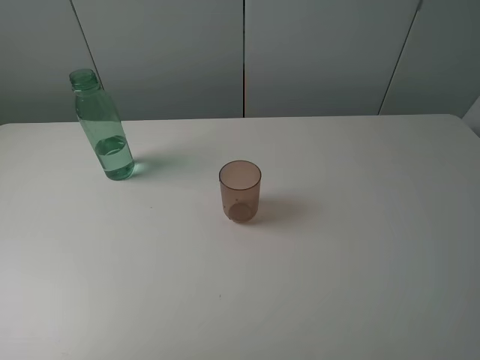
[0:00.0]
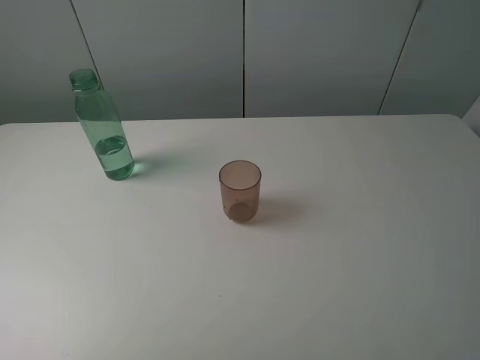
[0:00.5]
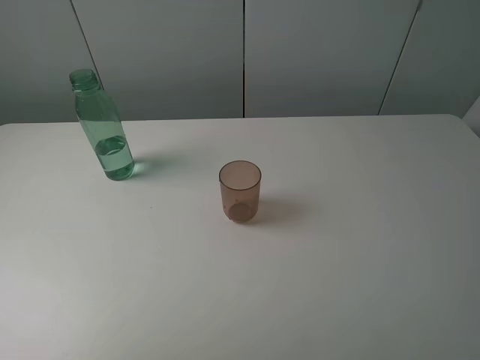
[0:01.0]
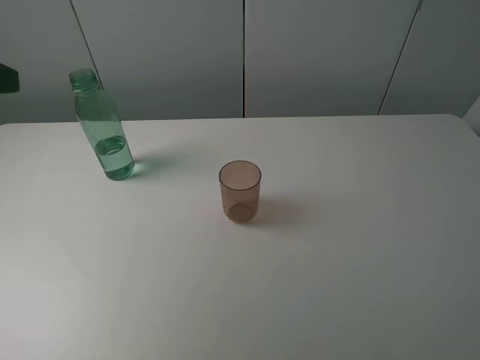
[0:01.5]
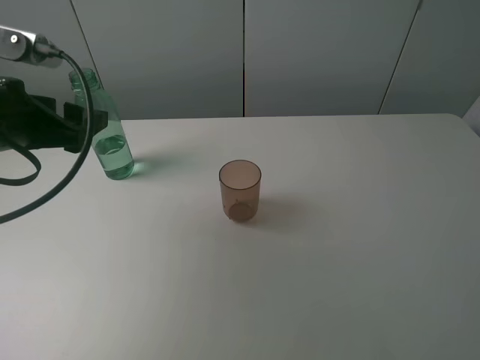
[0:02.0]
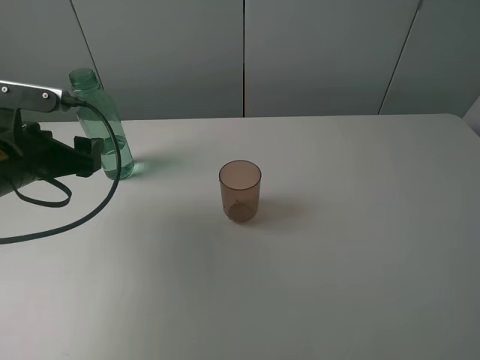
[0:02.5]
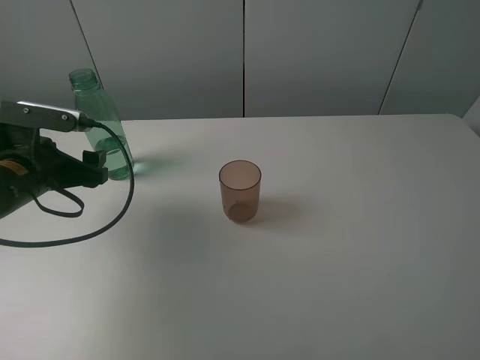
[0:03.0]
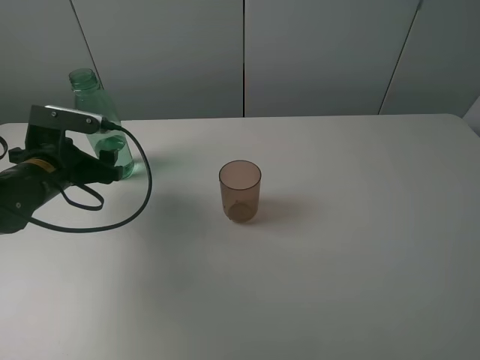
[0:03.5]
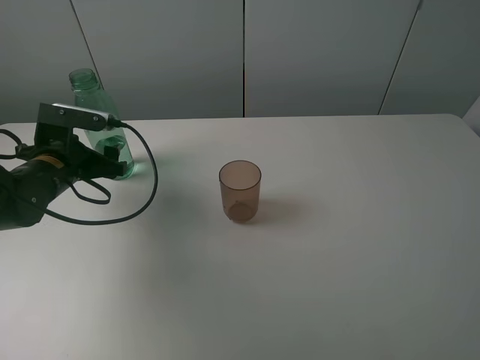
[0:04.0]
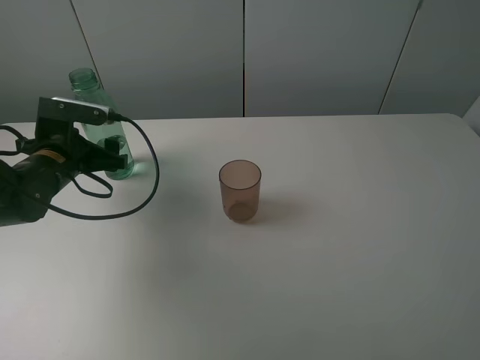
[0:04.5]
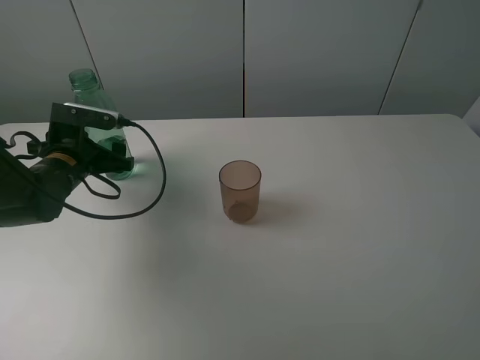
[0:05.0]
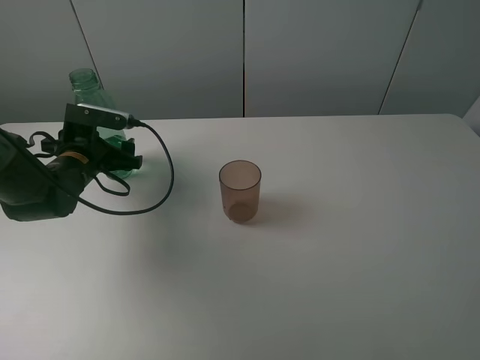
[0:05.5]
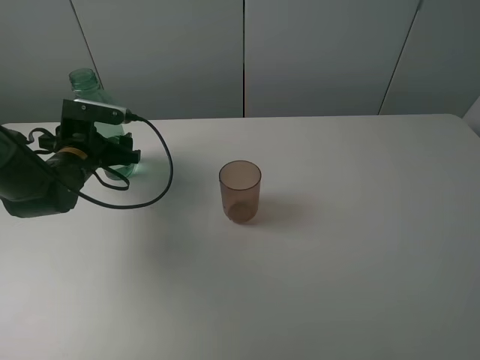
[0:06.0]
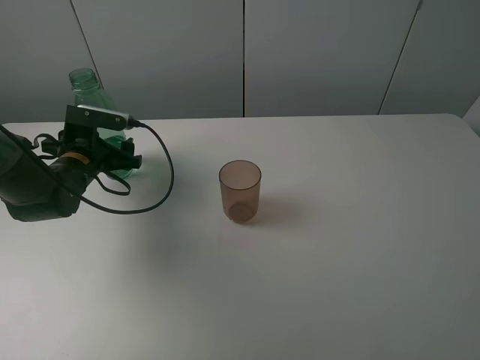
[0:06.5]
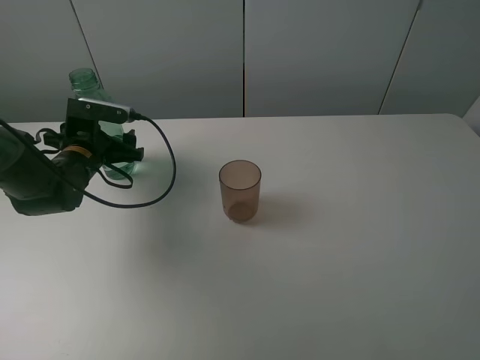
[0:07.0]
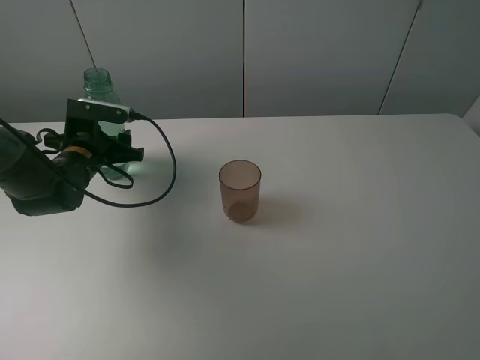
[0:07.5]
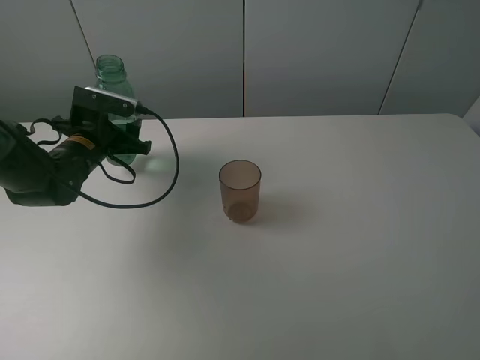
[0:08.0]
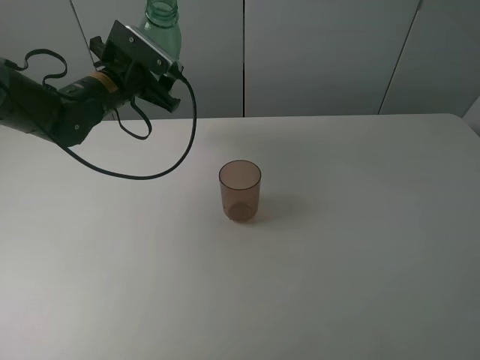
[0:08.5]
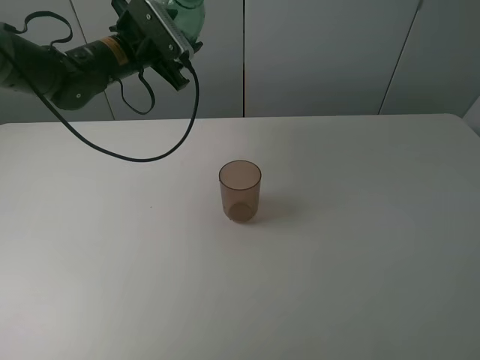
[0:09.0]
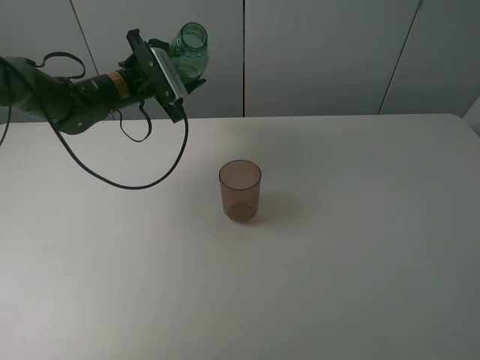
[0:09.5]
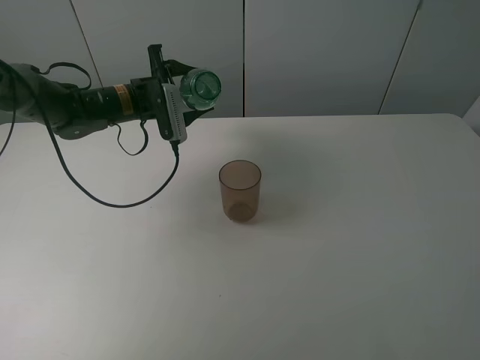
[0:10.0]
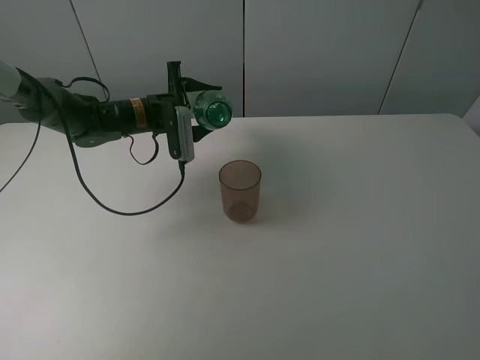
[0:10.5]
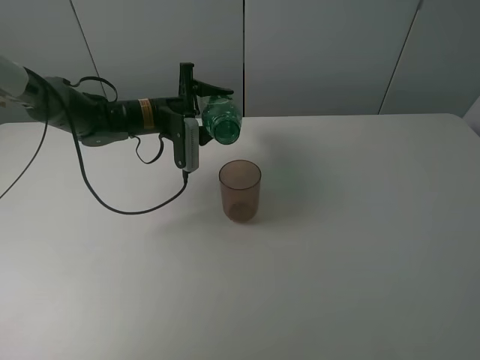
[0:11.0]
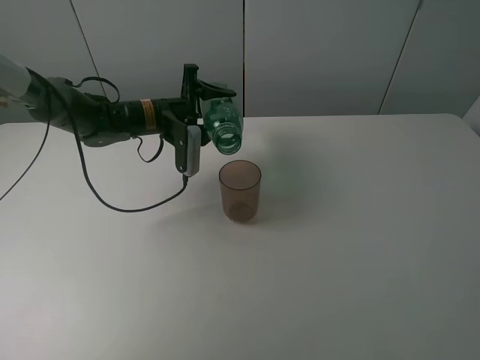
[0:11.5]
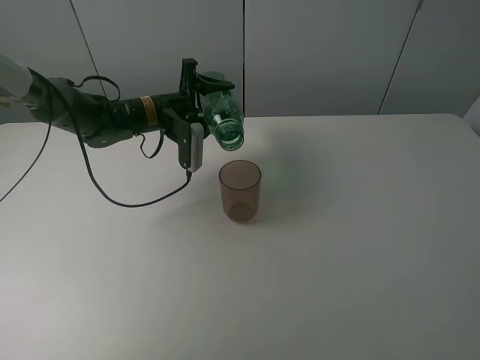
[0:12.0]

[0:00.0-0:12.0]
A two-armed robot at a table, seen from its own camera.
Task of the whole recording: pick up the bottle filled with water and pour it into the pink cup.
Step, 0:00.0 to 0:07.5: Grasp the green bottle with the left gripper.
0:00.0 to 0:02.0: The left gripper is displaced forward by about 25 cm.
0:02.0 to 0:04.0: The left gripper goes some 15 cm downward and forward.
0:04.0 to 0:06.0: The grippers move only a little.
0:06.0 to 0:08.0: The left gripper closes.
0:08.0 to 0:10.0: The left gripper is displaced forward and to the right by about 10 cm, and goes upward and returns, about 10 cm each way.

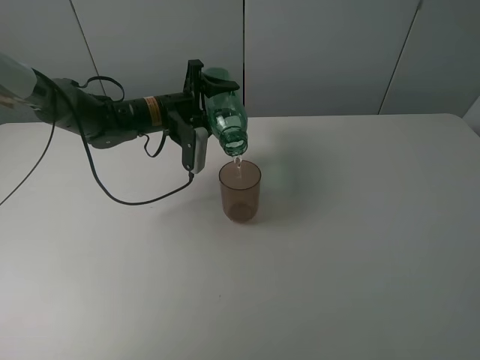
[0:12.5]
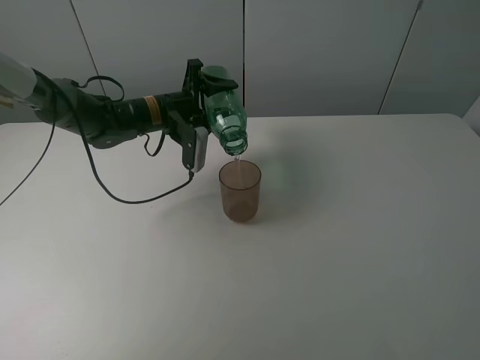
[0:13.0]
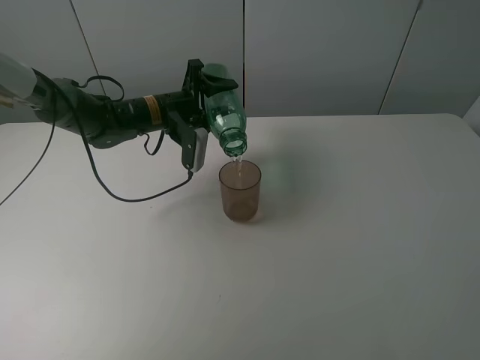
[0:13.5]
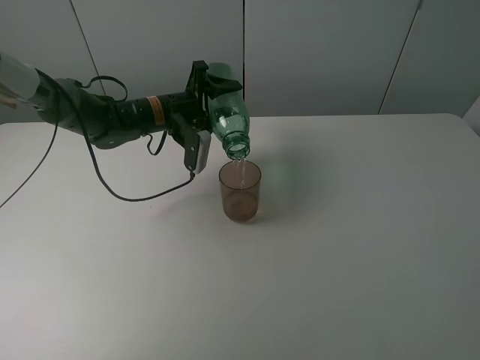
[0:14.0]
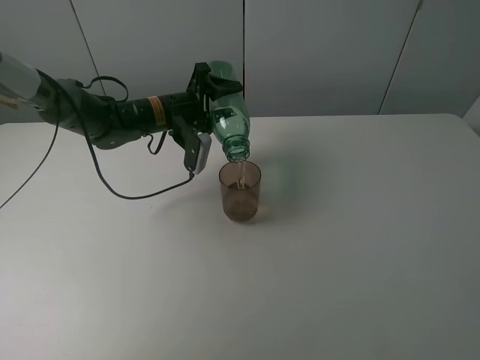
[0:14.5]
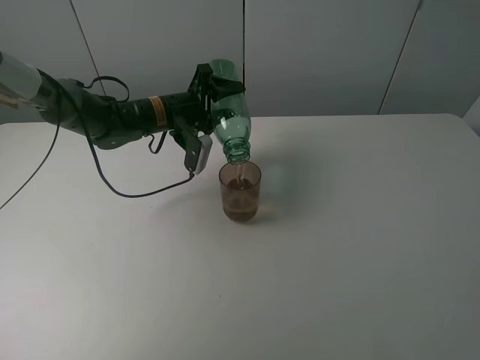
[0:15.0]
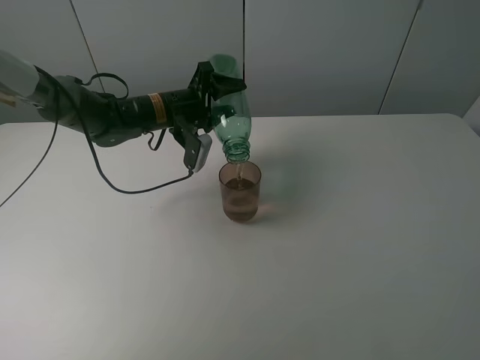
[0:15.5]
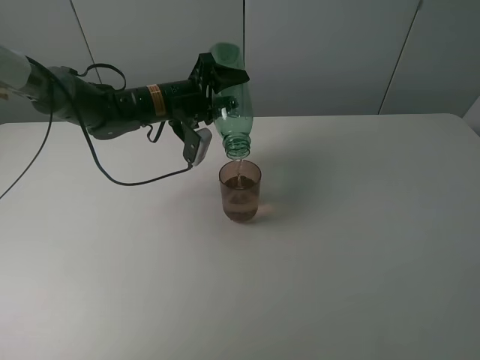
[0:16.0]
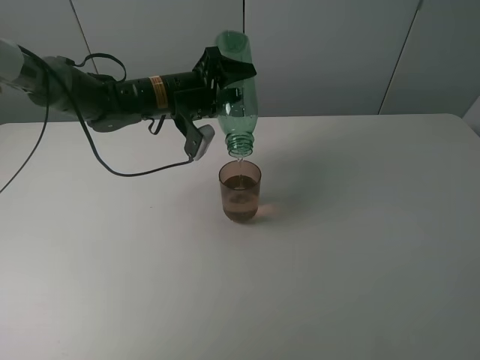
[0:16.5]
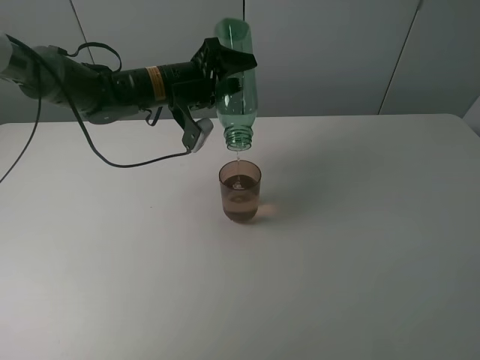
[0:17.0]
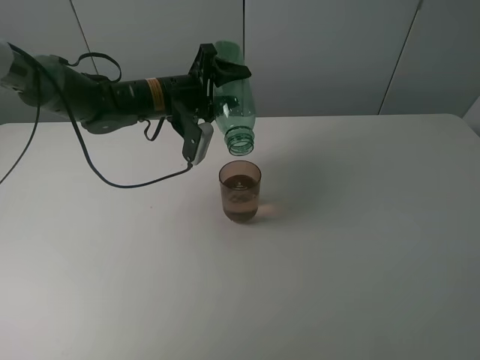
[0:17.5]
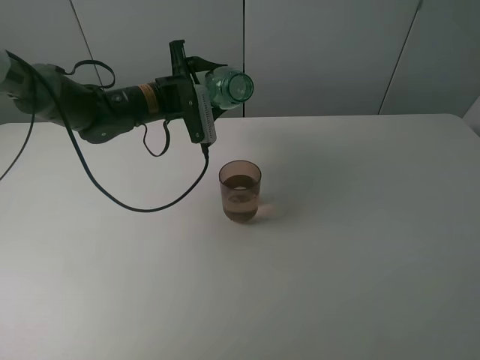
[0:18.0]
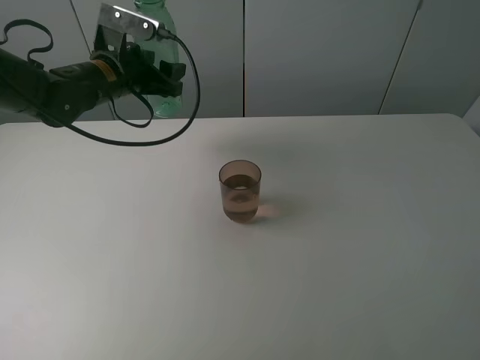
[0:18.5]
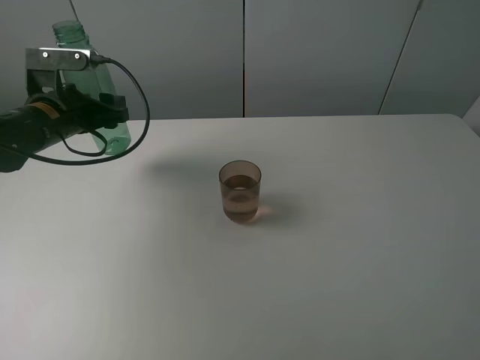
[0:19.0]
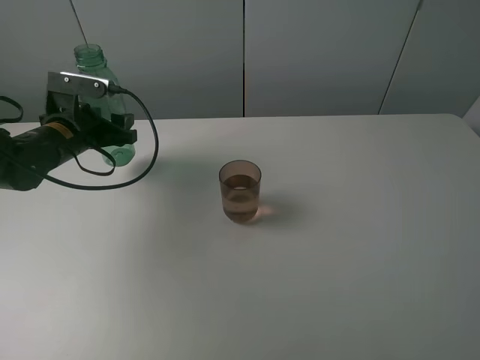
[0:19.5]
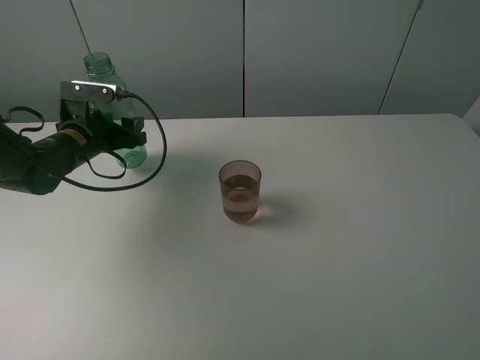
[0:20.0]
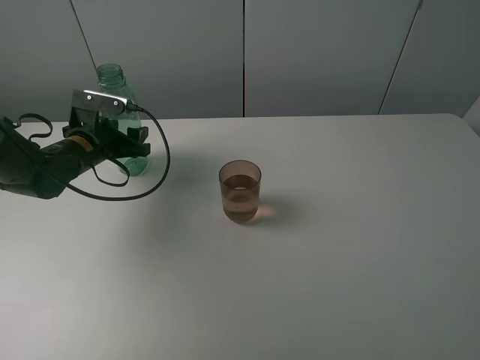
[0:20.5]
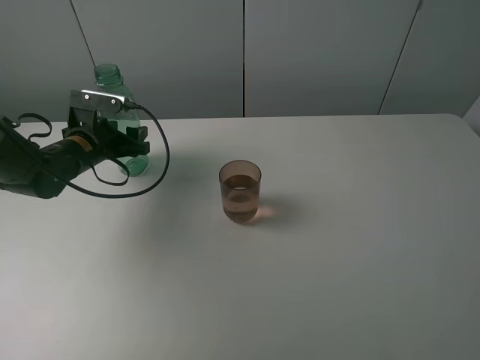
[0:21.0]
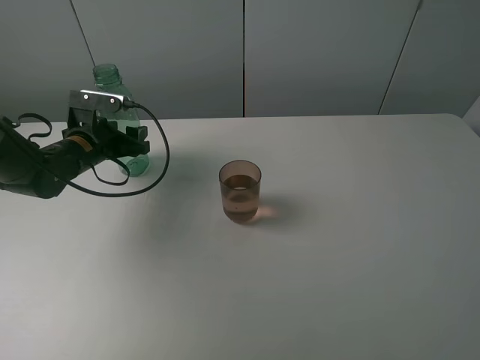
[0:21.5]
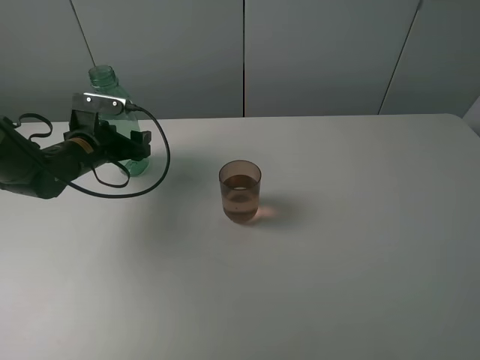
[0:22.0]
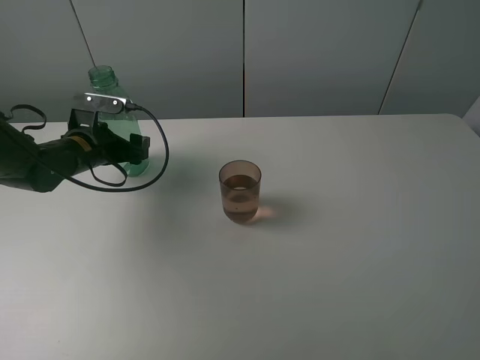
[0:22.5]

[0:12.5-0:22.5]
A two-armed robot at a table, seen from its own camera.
Task of the whole recording: pick up the bottle filled with water and pour it into the pink cup.
Step, 0:12.5 to 0:17.5: Pour water from green bottle to pink cup with the left gripper.
0:12.5 to 0:14.5: The grippers stay close to where they were, moving slightly.
0:14.5 to 0:16.5: The grippers stay close to where they were, moving slightly.
0:16.5 to 0:18.5: The left gripper is displaced to the left by approximately 10 cm.
0:18.5 to 0:20.5: The left gripper travels downward and to the left by roughly 10 cm.
0:20.5 to 0:22.5: The left gripper opens.

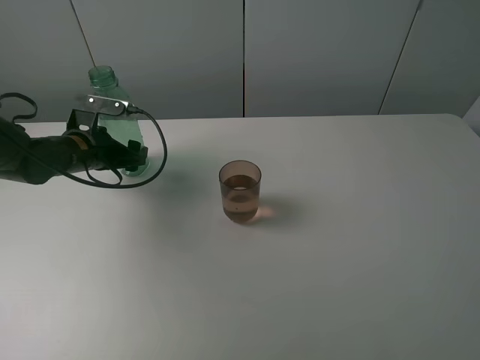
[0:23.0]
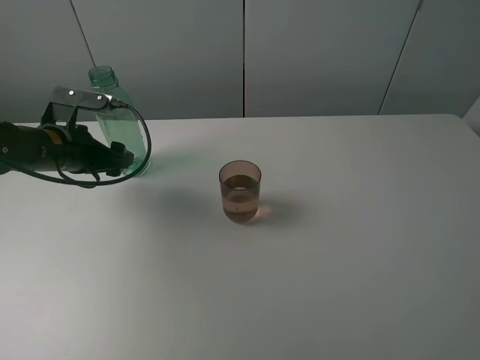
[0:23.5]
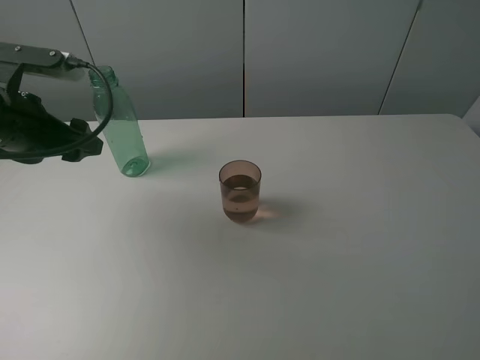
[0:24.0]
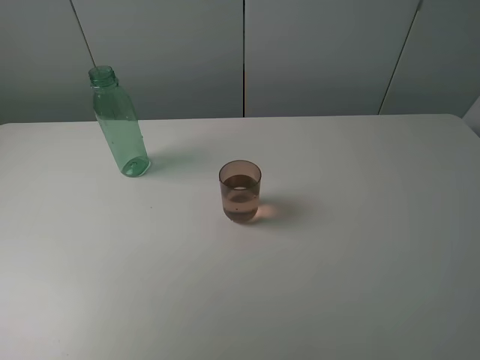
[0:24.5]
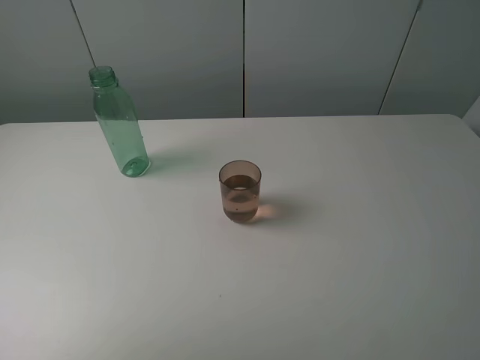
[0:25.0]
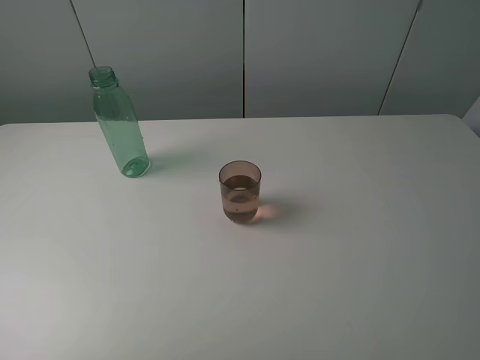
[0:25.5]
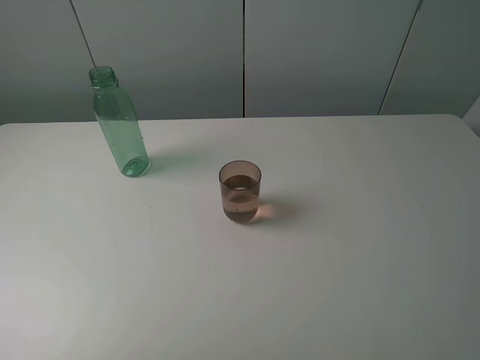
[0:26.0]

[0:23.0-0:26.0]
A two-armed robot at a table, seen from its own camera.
Task of the whole recording: pick up the bottle filled with water and pour it into the pink cup.
0:23.0 to 0:24.5: The left gripper goes roughly 30 cm backward and upward.
